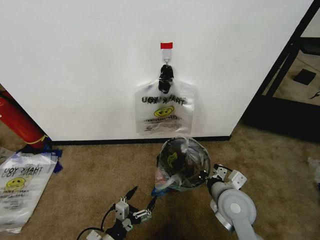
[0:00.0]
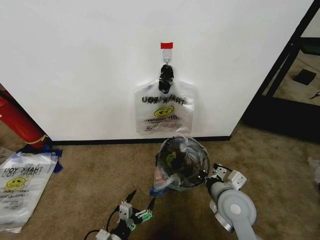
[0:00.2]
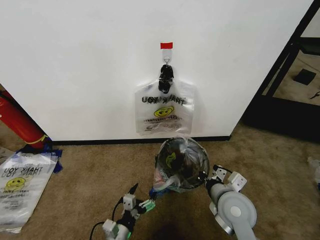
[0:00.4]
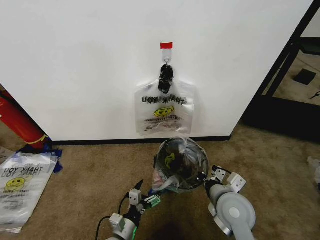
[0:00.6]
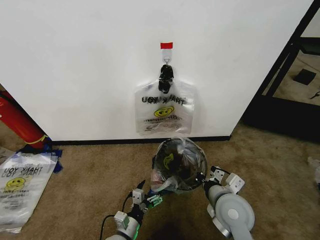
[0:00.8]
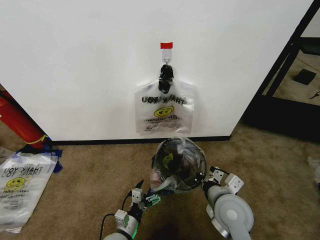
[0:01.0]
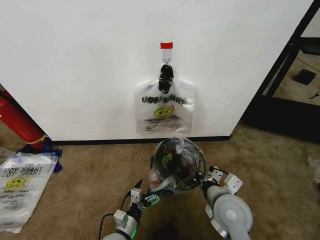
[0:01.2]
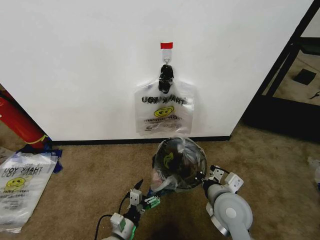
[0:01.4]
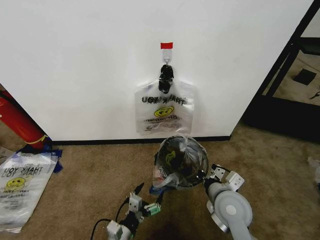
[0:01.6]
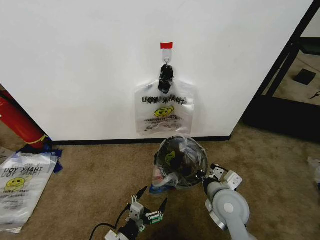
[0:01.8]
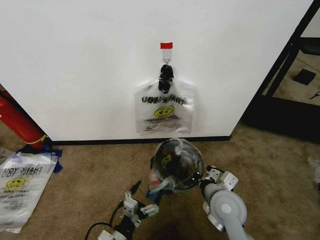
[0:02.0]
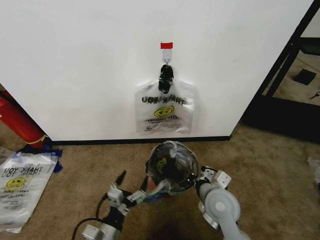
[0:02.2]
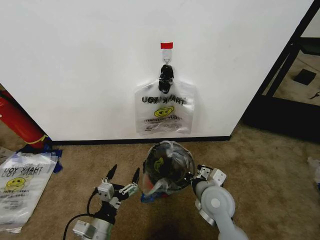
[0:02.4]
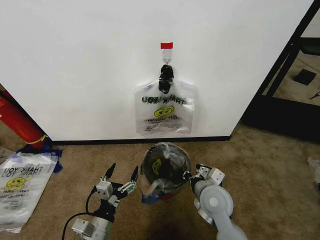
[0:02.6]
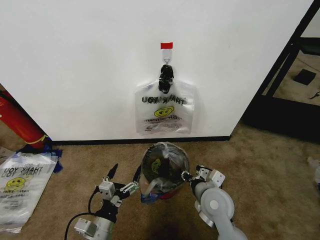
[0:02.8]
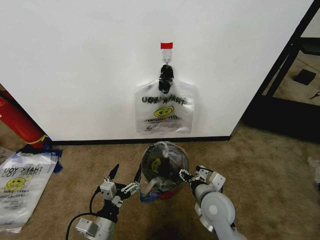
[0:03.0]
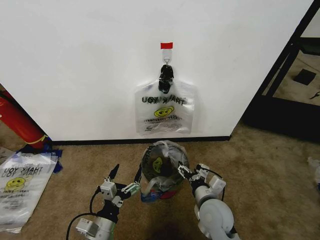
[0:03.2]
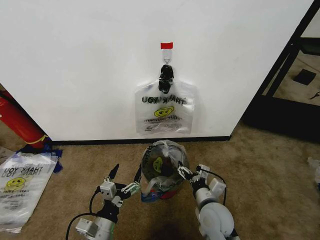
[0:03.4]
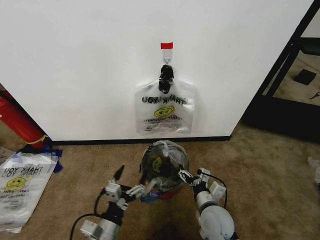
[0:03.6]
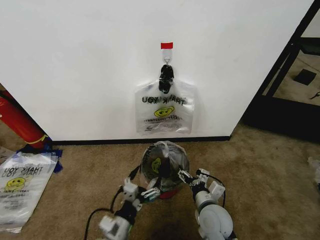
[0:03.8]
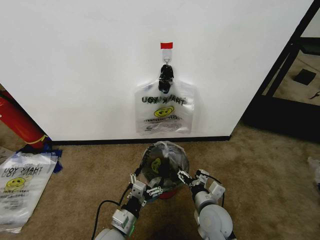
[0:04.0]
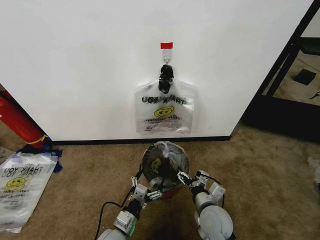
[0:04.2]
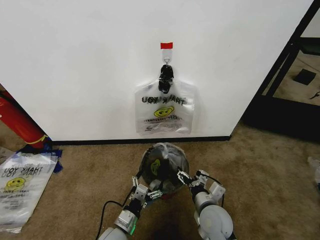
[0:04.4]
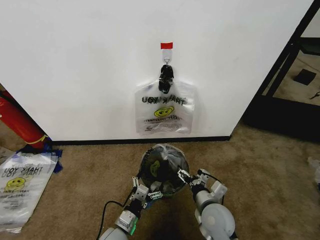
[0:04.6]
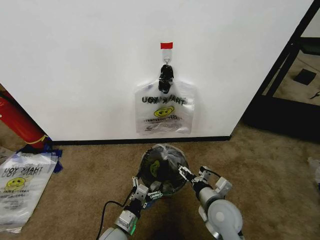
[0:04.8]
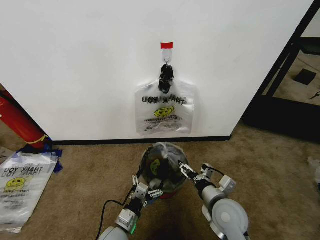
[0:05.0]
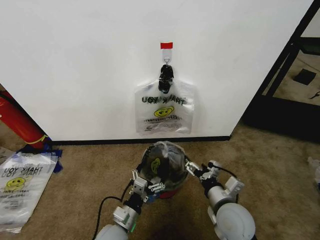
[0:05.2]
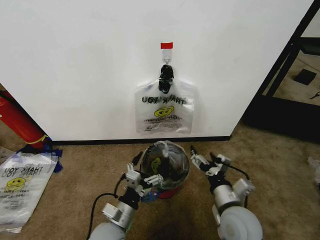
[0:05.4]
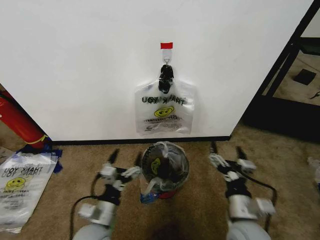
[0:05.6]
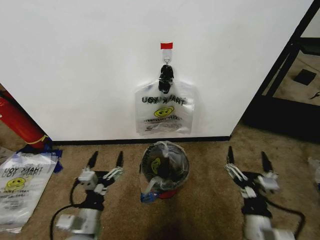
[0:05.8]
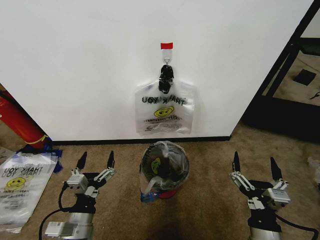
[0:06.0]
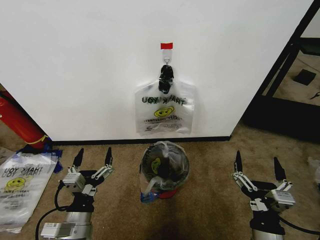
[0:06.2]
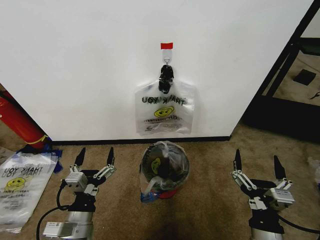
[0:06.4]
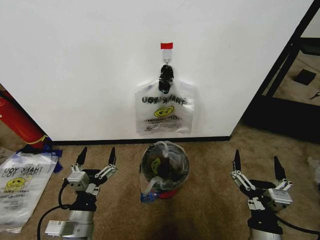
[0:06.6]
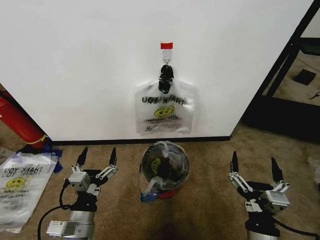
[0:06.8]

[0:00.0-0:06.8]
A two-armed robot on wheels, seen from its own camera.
Task of the whole recording: Pick up the garbage bag from the wall and place it over the trash bin.
0:00.0 to 0:01.4: The left gripper ends up roughly 5 cm from where it was.
0:01.4 to 0:02.8: The left gripper shifts about 10 cm upward; the right gripper opens its fingers.
0:02.8 to 0:04.0: The right gripper shifts approximately 5 cm downward, and opens its fingers. Meanwhile the left gripper ends up approximately 5 cm from where it was.
0:04.0 to 0:05.4: The right gripper goes about 5 cm upward.
0:05.4 to 0:06.8: The left gripper shifts some 5 cm to the left, while the right gripper goes roughly 10 cm backward.

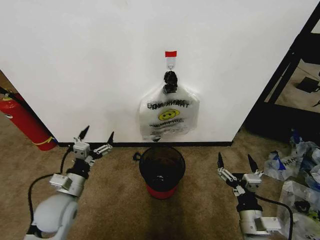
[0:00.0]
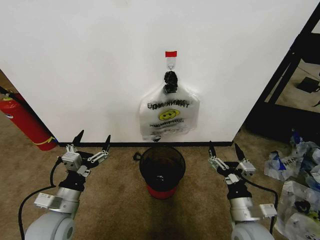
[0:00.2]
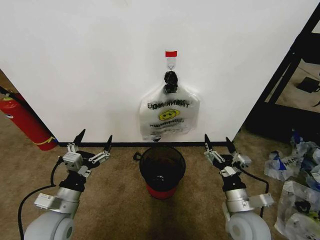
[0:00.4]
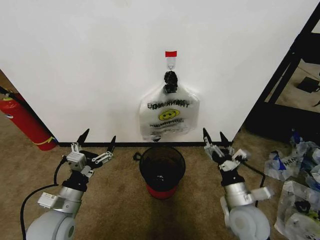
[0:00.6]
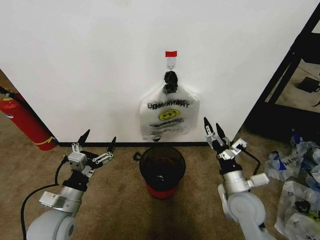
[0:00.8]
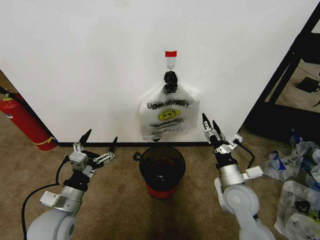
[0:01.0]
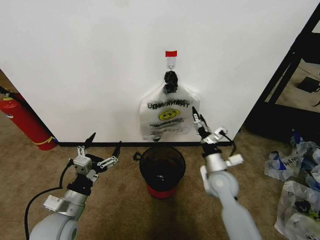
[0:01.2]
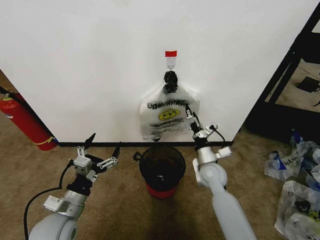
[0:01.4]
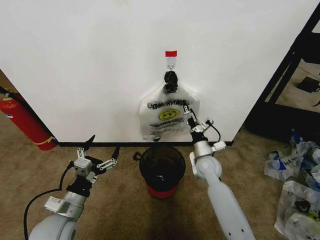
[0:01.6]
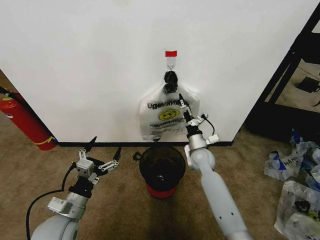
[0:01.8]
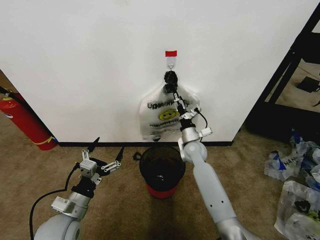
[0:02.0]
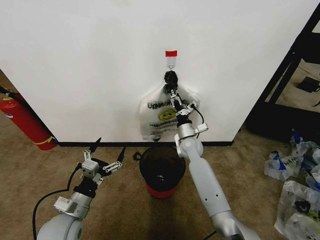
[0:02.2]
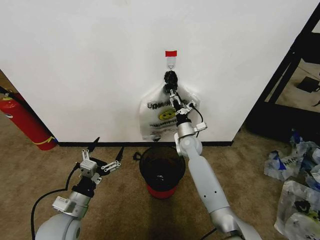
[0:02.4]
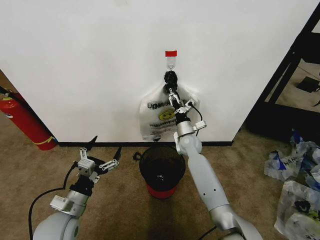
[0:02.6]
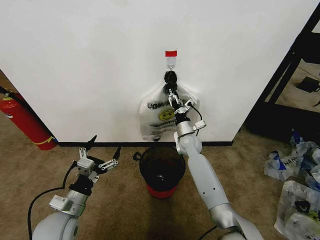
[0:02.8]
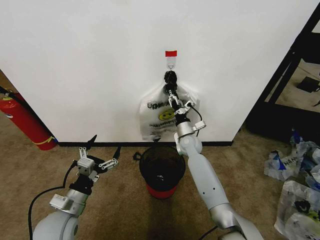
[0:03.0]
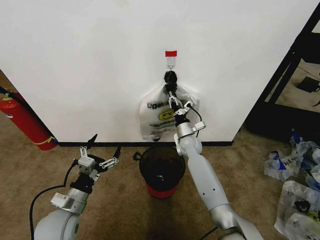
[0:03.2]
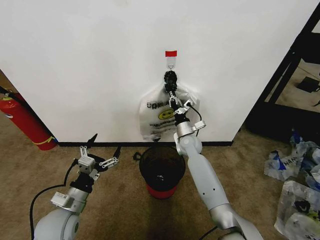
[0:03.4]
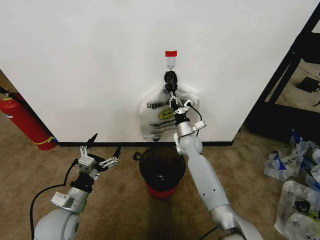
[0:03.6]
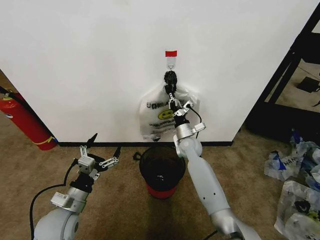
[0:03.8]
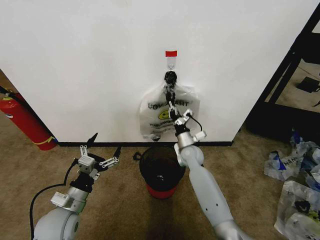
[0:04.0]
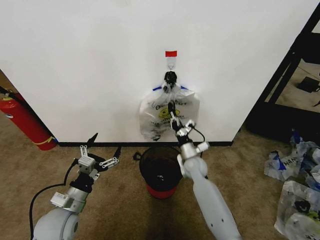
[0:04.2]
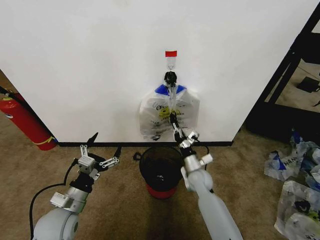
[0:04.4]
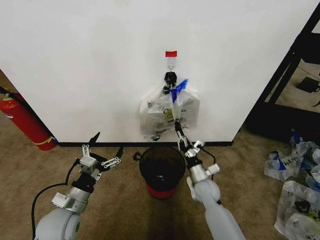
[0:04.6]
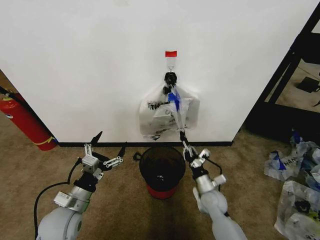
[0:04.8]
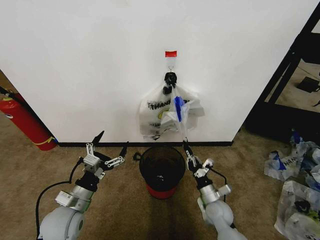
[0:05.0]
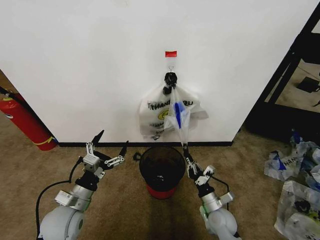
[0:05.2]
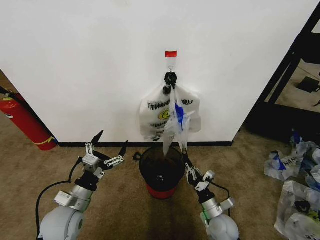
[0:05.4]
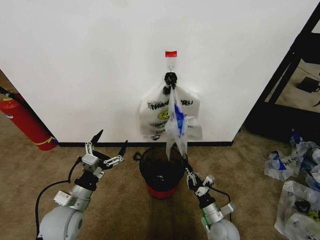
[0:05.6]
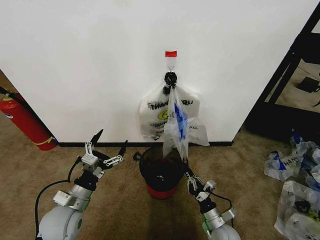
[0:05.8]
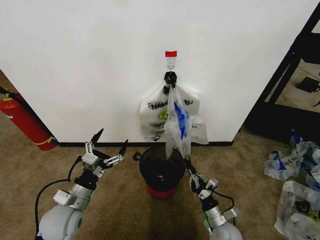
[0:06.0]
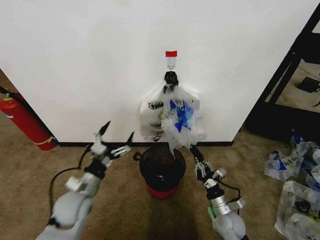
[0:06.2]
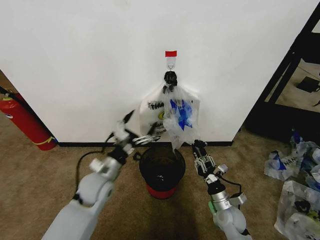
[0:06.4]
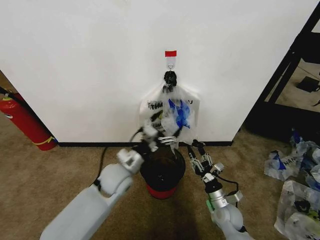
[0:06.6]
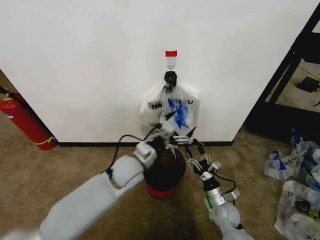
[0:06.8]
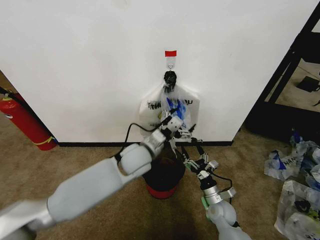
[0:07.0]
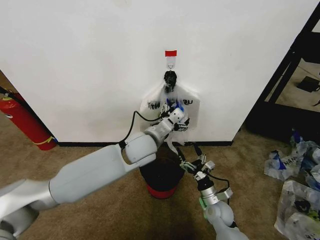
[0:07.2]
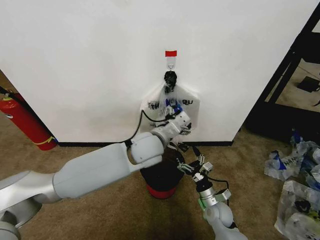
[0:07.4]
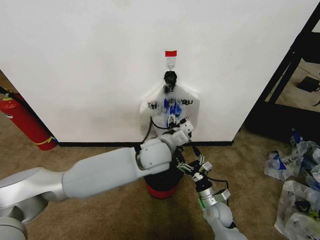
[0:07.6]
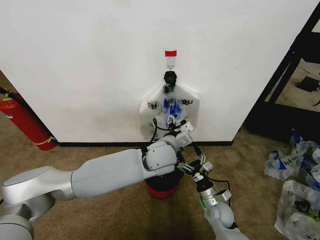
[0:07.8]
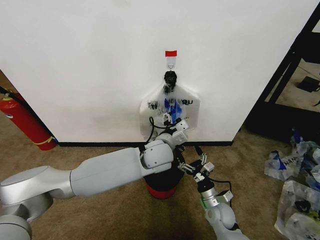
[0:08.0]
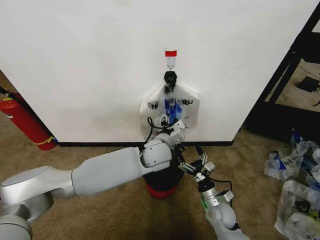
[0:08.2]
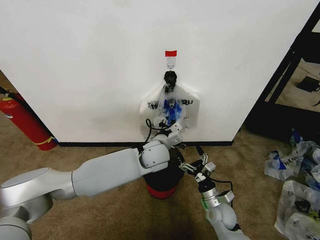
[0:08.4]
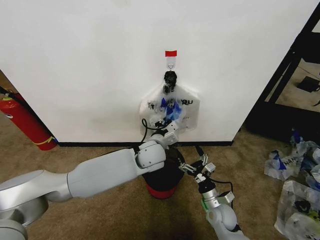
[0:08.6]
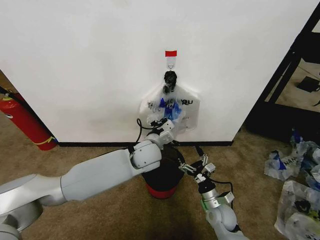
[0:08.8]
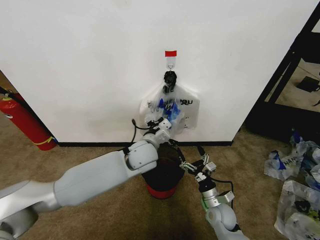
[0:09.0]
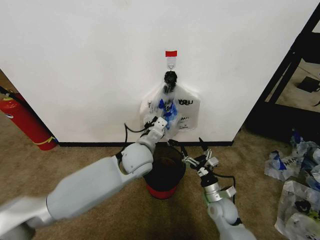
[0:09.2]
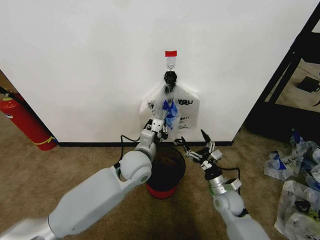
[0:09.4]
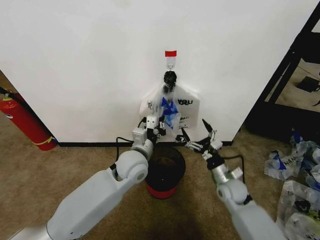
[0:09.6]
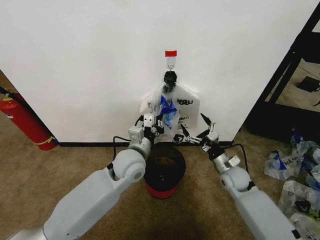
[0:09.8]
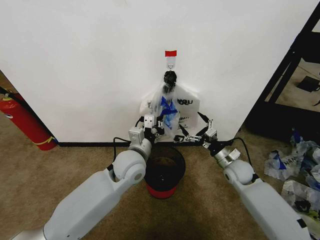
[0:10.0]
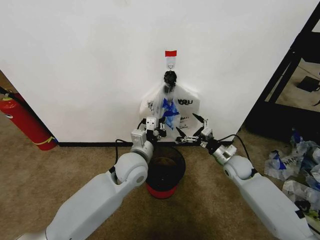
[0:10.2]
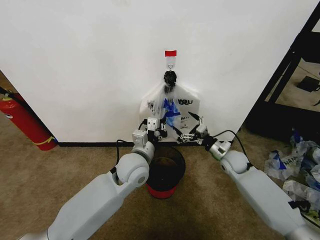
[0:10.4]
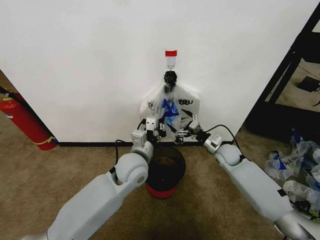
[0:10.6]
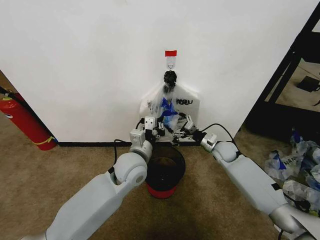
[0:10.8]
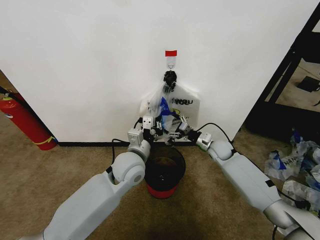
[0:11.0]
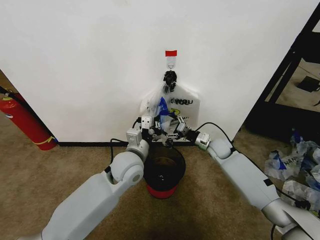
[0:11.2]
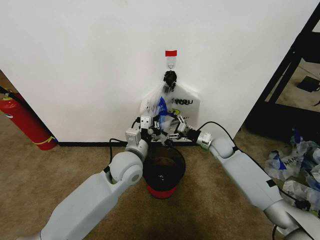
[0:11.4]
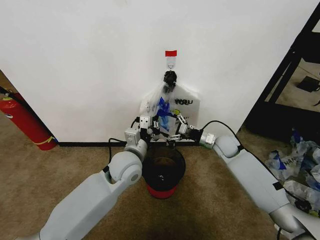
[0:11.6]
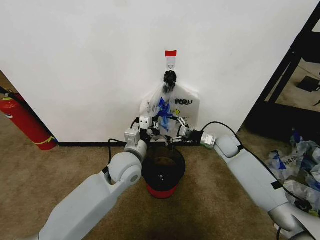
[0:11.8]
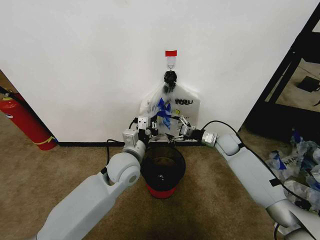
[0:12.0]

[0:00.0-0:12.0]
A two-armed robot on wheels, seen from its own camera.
Task of the whole recording: Pick up the garbage bag from the wall and place it over the trash bin.
0:01.6 to 0:03.0: The right gripper travels forward and to the left by about 10 cm, and closes.
0:03.0 to 0:04.4: The right gripper travels backward and downward by some 15 cm, and closes its fingers.
0:04.4 to 0:06.0: The right gripper travels backward, downward and to the right by about 20 cm.
0:06.0 to 0:07.6: The left gripper shifts some 30 cm to the right, forward and upward. The right gripper goes some 5 cm forward, and opens.
0:07.6 to 0:09.0: The left gripper ends up approximately 5 cm from where it was, and closes.
0:09.0 to 0:10.4: The left gripper changes place by roughly 5 cm; the right gripper goes roughly 20 cm forward, upward and to the right.
0:10.4 to 0:12.0: The right gripper heads forward, covering some 5 cm.

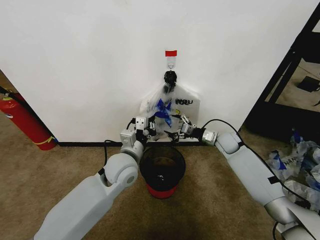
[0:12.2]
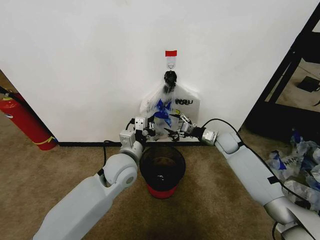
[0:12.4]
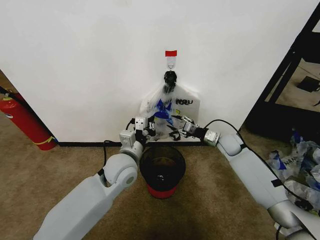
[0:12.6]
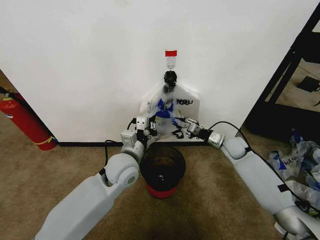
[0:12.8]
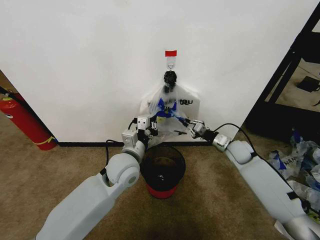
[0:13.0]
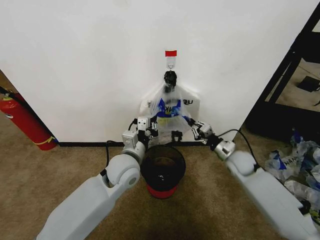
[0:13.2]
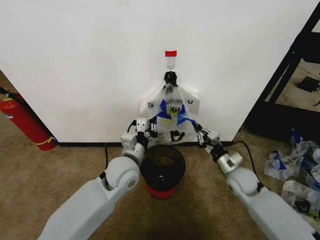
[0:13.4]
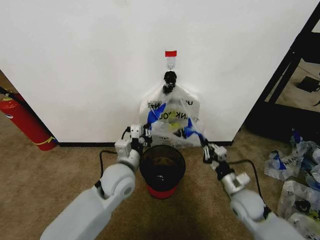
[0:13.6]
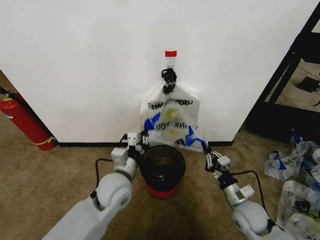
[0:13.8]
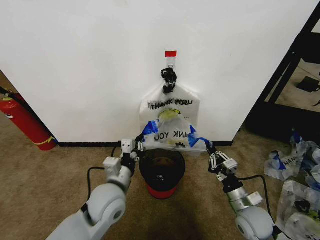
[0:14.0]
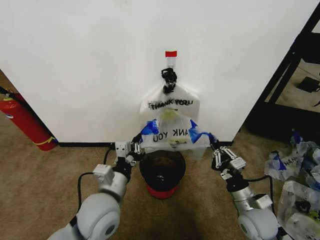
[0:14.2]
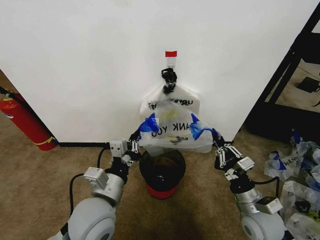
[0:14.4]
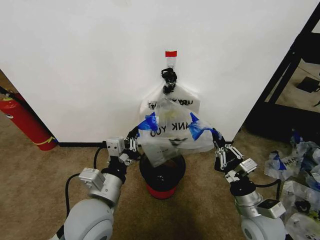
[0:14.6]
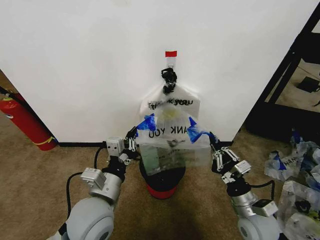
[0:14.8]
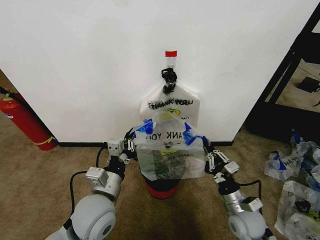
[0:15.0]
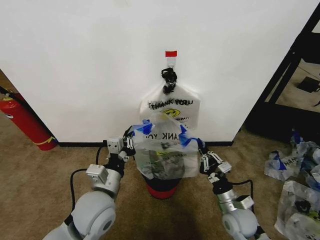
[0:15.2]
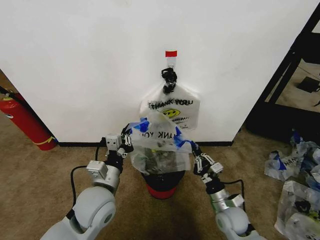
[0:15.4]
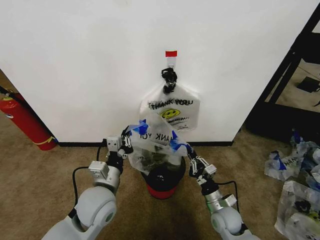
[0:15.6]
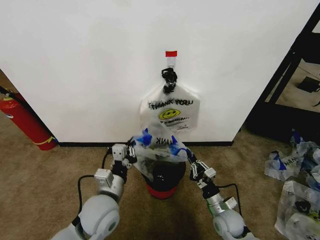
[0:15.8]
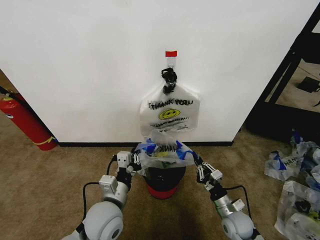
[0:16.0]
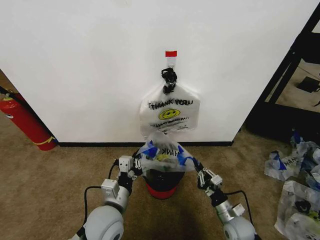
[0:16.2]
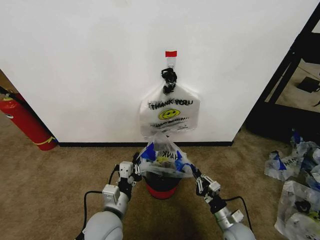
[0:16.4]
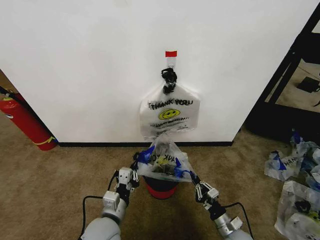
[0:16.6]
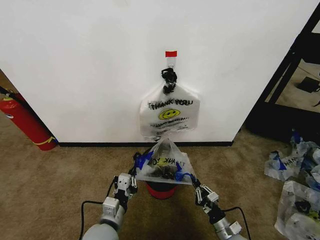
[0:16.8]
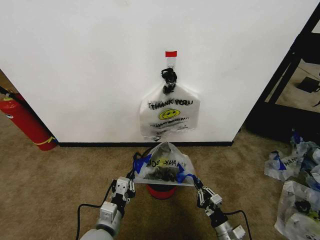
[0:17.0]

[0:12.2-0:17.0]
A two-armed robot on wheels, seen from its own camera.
Task of the whole recording: Pick up the garbage bag from the wall and place it over the trash bin.
0:12.2 to 0:13.8: The right gripper shifts some 25 cm backward, and closes its fingers; the left gripper travels backward by some 5 cm.
0:13.8 to 0:15.4: The right gripper shifts roughly 5 cm to the left.
0:15.4 to 0:17.0: The right gripper travels backward and downward by about 10 cm. Meanwhile the left gripper shifts some 10 cm downward and backward.
